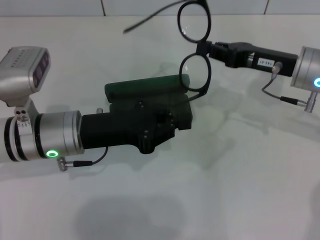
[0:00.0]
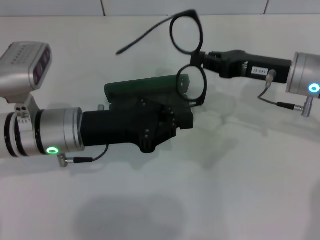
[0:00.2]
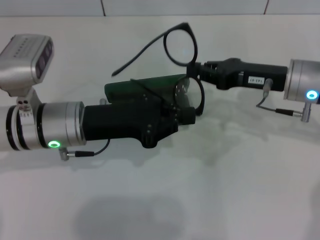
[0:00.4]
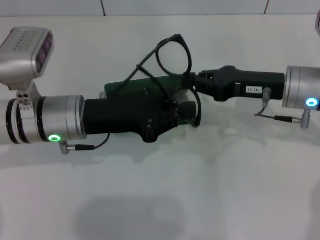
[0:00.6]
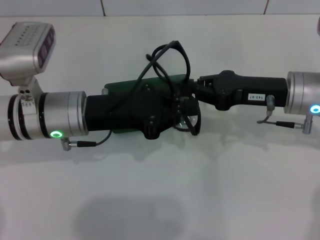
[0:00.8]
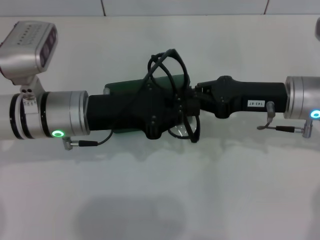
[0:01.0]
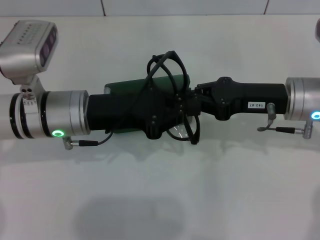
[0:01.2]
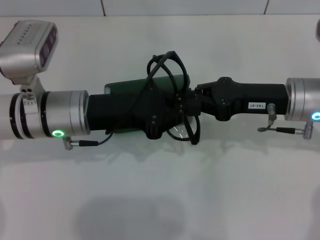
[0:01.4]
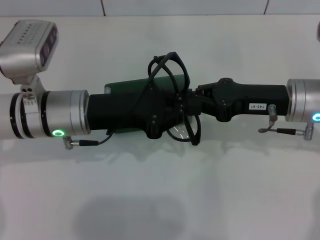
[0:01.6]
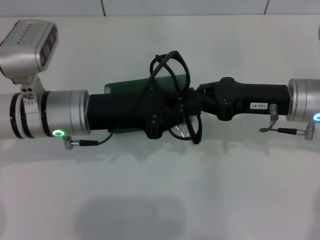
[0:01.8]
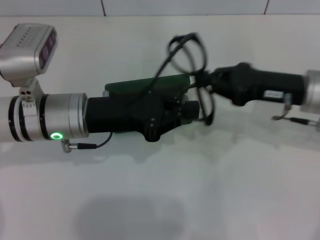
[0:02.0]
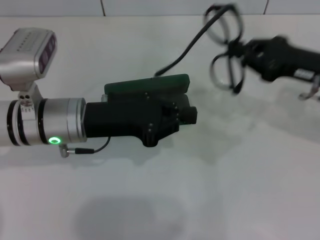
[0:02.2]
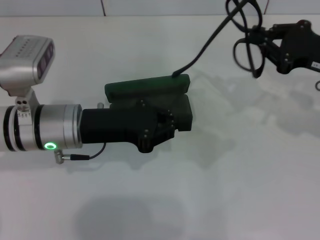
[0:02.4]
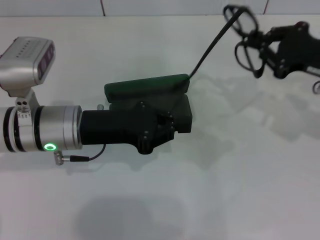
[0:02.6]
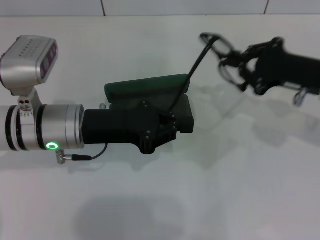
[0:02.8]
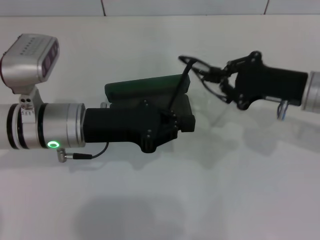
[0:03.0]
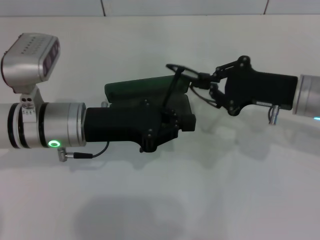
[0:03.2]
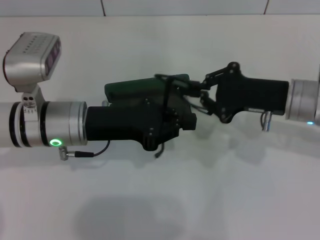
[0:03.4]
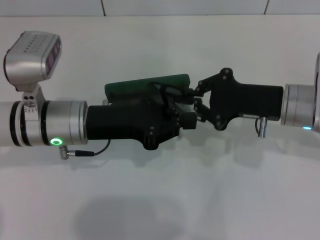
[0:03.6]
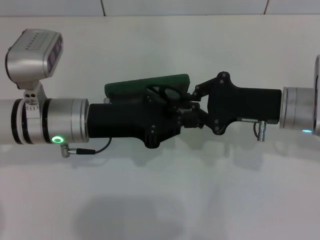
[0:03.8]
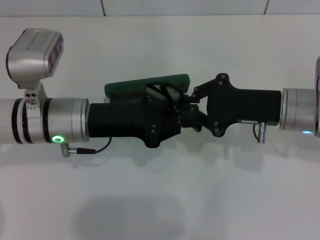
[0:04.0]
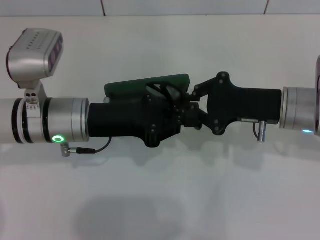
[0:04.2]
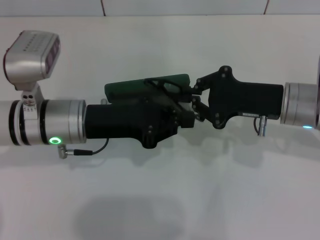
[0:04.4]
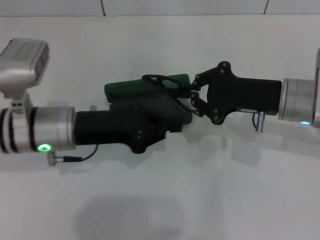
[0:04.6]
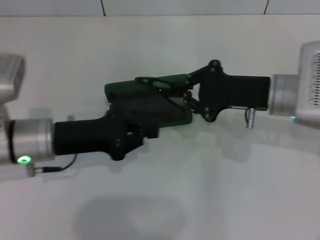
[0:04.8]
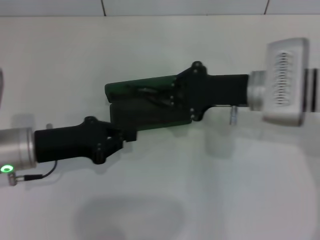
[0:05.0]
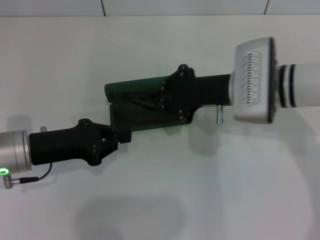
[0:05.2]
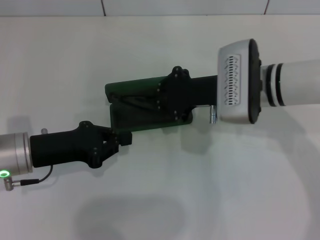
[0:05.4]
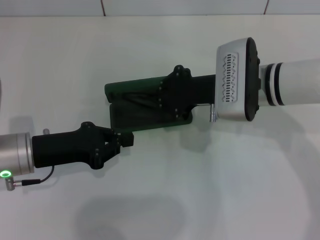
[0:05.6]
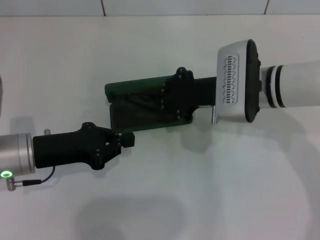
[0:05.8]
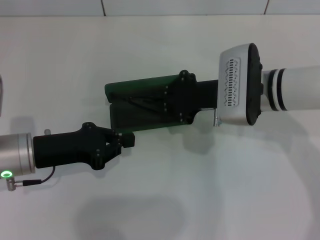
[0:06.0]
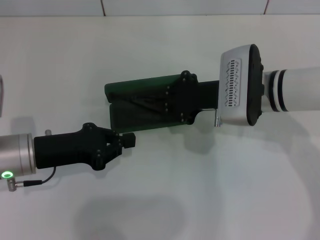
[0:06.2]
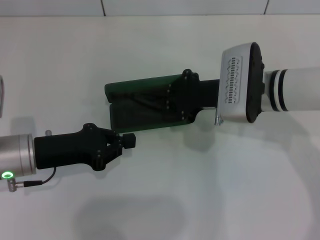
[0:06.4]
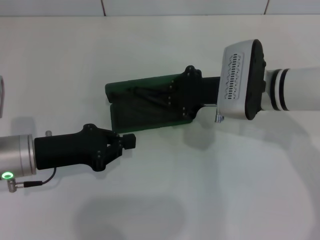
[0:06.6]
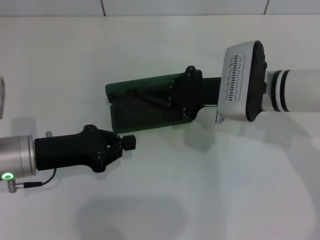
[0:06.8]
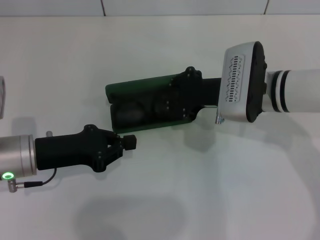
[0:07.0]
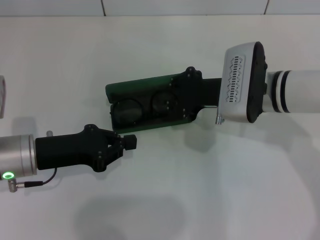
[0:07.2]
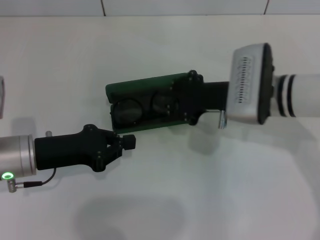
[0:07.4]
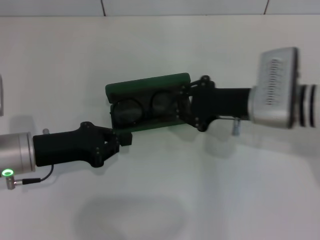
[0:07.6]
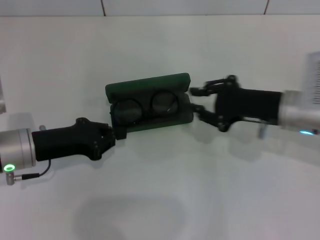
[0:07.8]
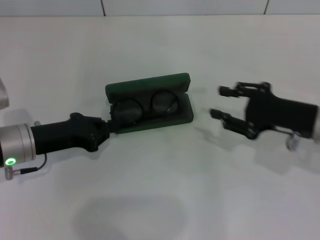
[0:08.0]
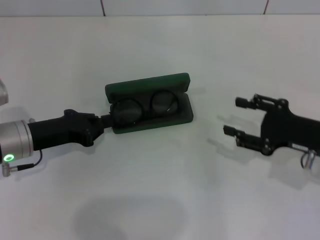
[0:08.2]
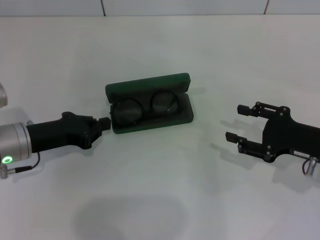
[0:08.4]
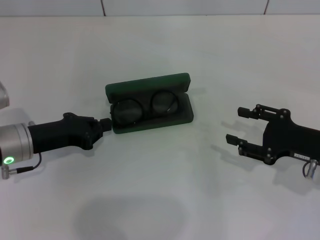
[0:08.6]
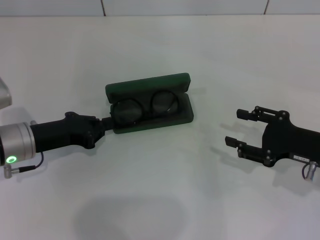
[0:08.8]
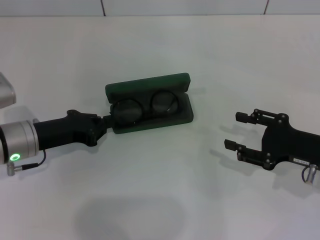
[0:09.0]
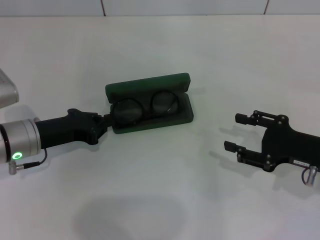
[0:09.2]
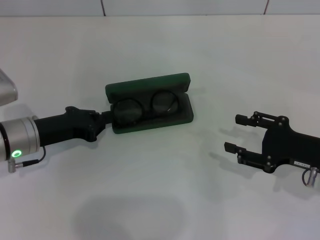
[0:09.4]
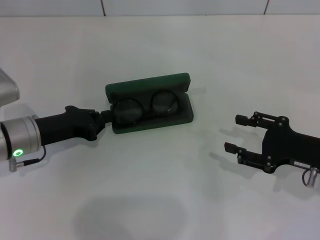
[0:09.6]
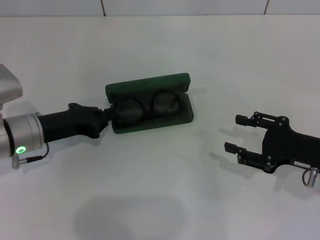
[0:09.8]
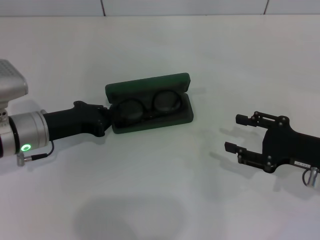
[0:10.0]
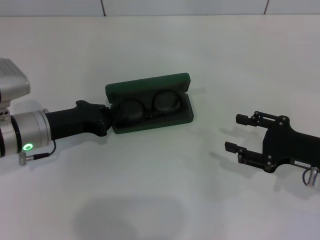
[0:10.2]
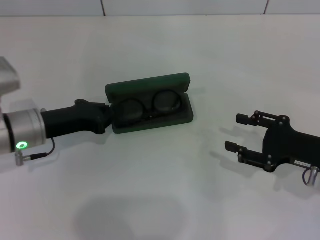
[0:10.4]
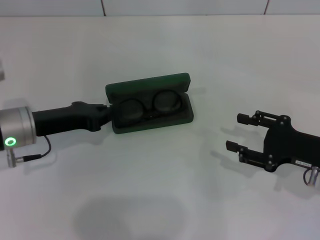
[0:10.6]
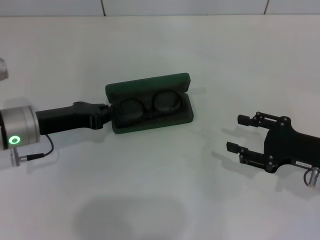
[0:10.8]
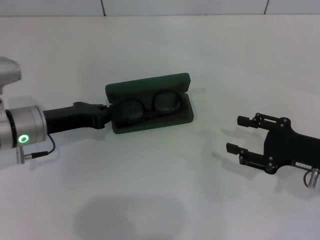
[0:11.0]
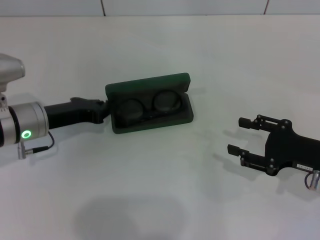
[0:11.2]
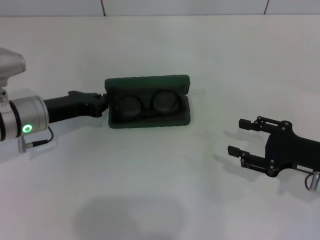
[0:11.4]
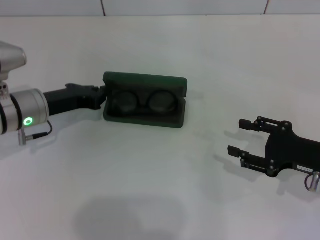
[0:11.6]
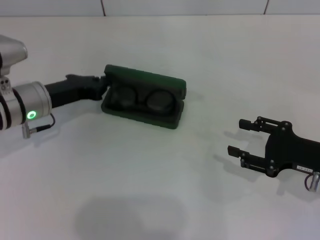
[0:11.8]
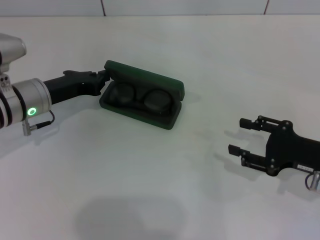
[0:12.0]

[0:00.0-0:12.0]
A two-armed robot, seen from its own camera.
Step, 0:00.0 to 0:04.4: Fold the frame with your left hand.
Step, 0:04.6 to 0:08.6: Put the glasses into the case with your right hand.
0:03.0 to 0:04.4: The grippers make only small movements.
0:04.4 to 0:06.0: The two grippers go roughly 5 cm to the left.
0:06.0 to 0:07.6: The grippers move only a little.
0:07.6 to 0:09.0: The right gripper is displaced to the right and backward by some 15 cm, and opens up.
0:09.0 to 0:12.0: There are only small adjustments of the grippers.

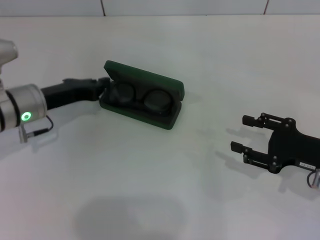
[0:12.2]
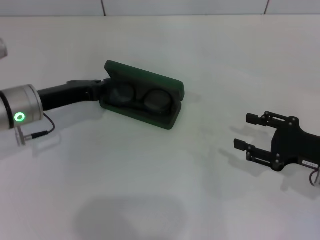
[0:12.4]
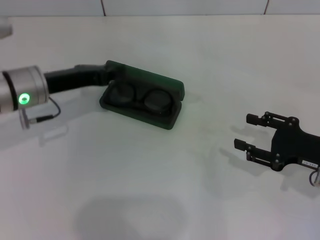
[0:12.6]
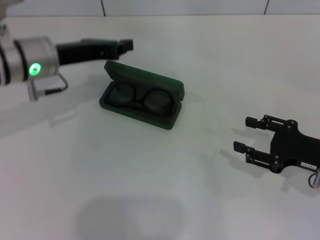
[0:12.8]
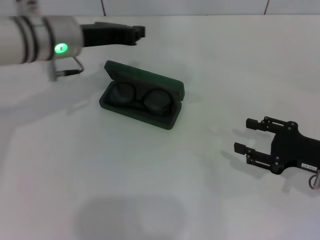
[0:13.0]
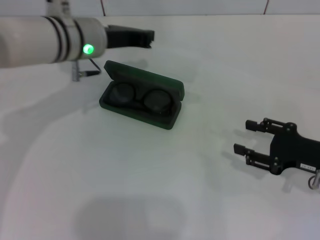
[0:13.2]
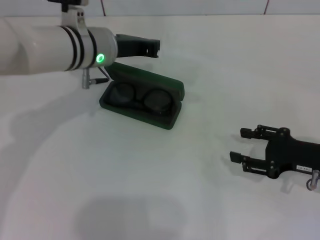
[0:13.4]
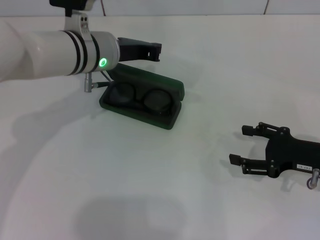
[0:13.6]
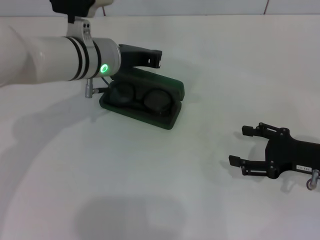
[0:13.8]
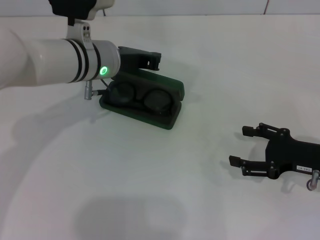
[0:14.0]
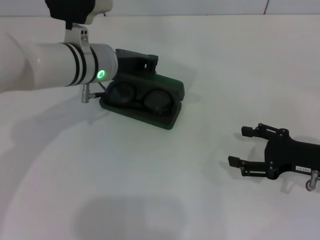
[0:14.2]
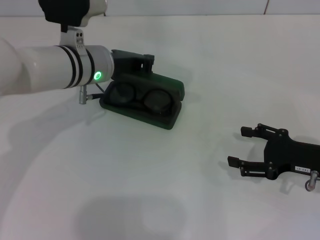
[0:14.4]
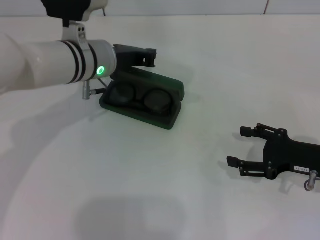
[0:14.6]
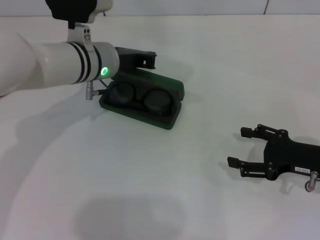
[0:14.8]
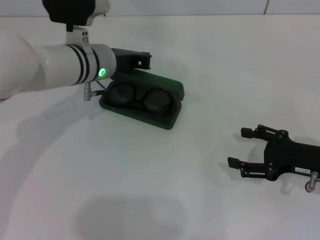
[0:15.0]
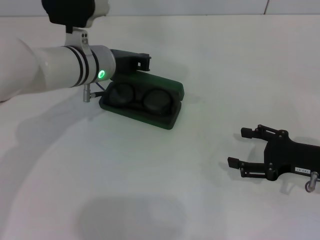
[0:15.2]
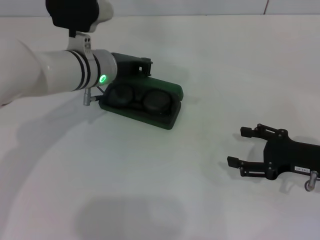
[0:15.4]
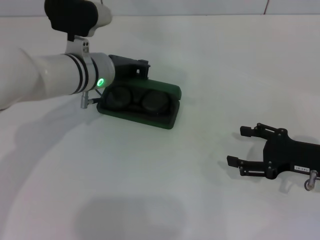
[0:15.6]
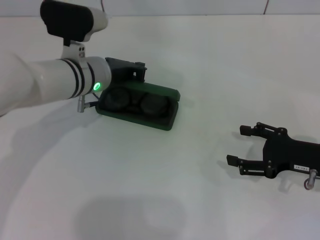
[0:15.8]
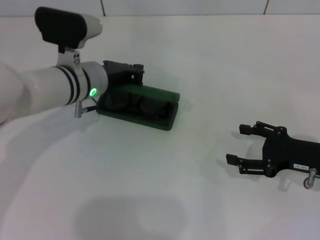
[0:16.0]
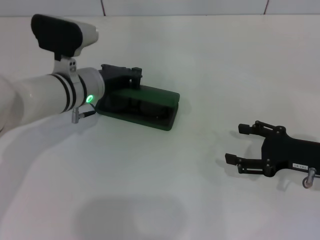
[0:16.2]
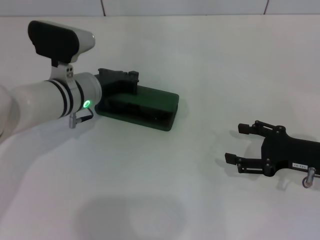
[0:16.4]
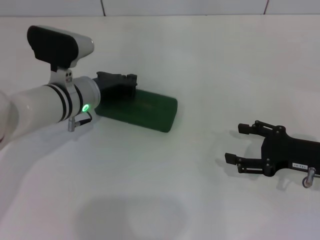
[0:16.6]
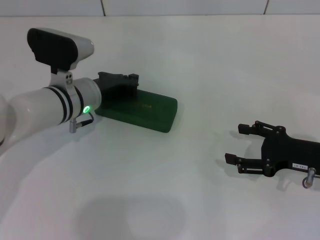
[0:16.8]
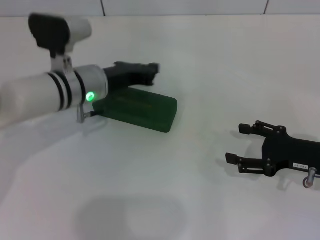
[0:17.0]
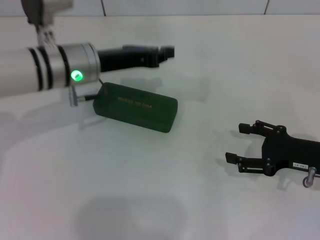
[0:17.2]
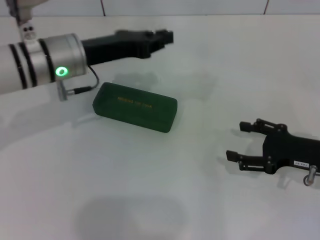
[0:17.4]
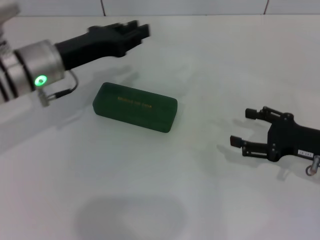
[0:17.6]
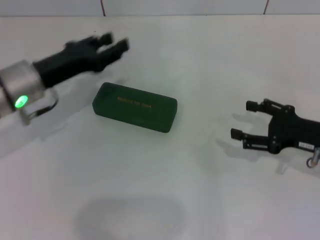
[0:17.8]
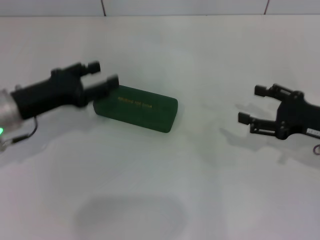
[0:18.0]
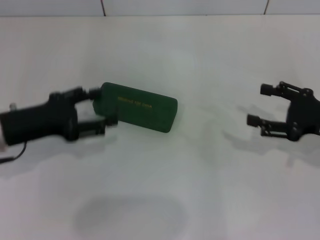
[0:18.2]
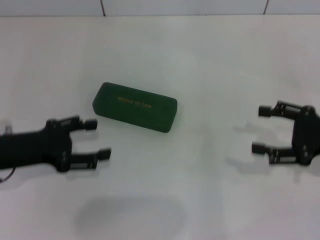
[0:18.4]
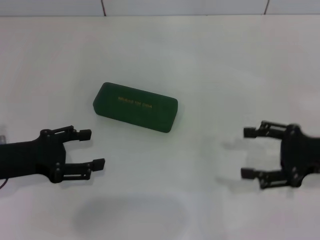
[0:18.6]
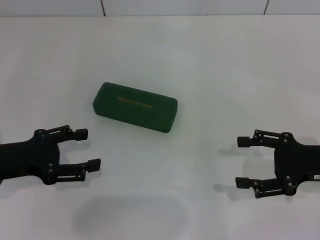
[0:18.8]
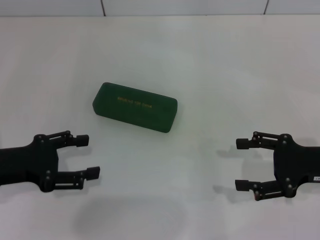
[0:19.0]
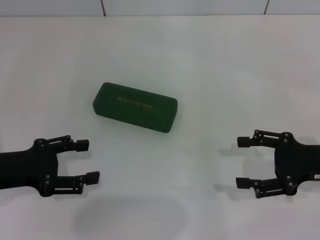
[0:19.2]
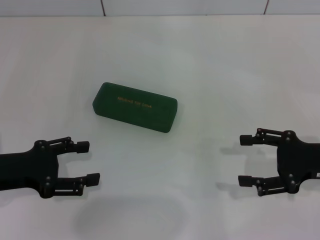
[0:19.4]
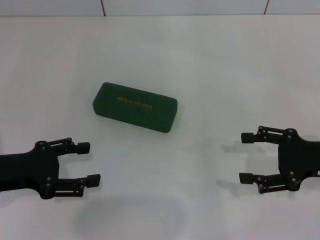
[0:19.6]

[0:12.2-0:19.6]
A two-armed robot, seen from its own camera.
Step, 0:12.2 to 0:16.8: Close the glasses case with your left hand.
0:12.2 to 0:13.6: The left gripper goes about 15 cm to the right and upward.
0:13.6 to 0:15.2: The grippers stay close to where they were, moving slightly.
0:15.2 to 0:16.6: The left gripper ends up approximately 5 cm from where it was.
0:16.6 to 0:18.2: The right gripper moves some 5 cm, while the left gripper moves to the left and backward, roughly 15 cm, and opens.
0:18.2 to 0:19.6: The grippers stay close to where they were, moving slightly.

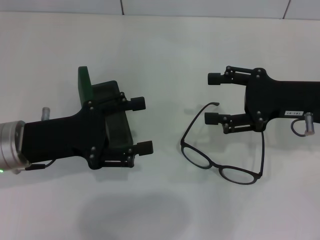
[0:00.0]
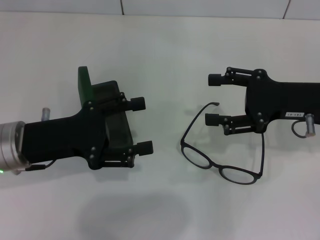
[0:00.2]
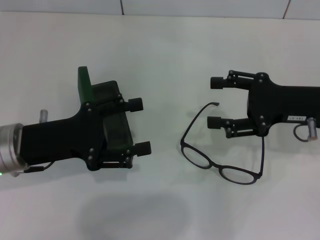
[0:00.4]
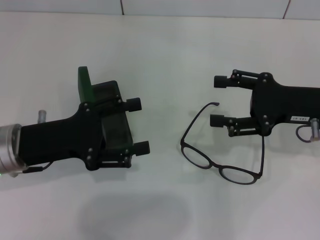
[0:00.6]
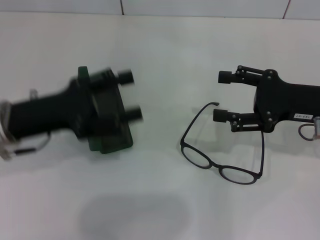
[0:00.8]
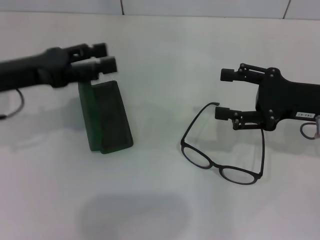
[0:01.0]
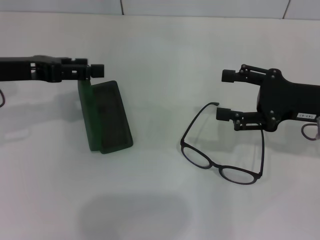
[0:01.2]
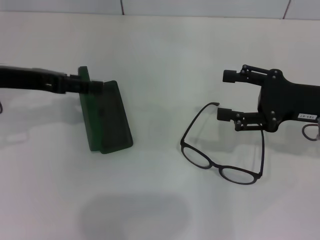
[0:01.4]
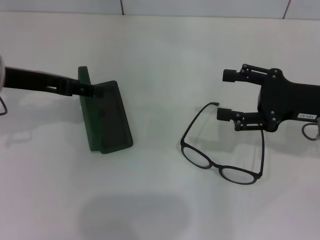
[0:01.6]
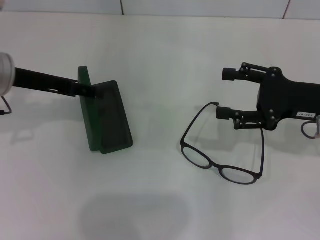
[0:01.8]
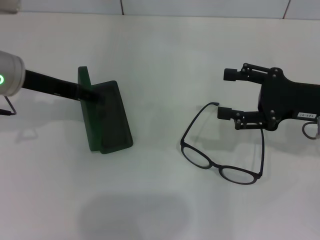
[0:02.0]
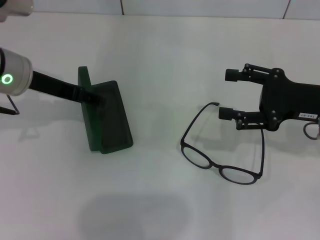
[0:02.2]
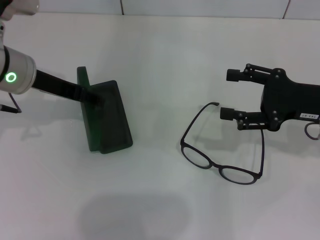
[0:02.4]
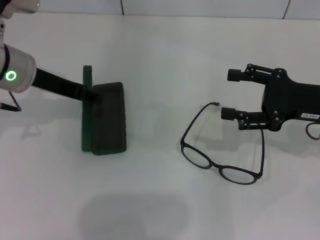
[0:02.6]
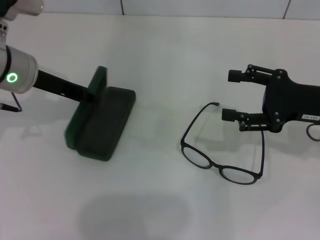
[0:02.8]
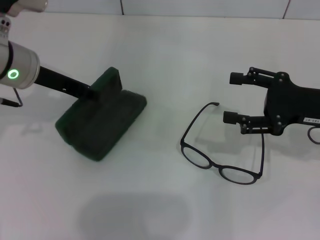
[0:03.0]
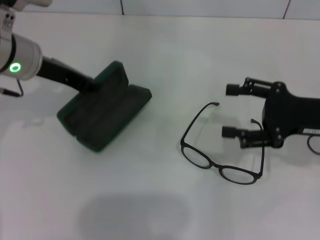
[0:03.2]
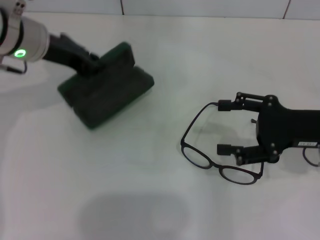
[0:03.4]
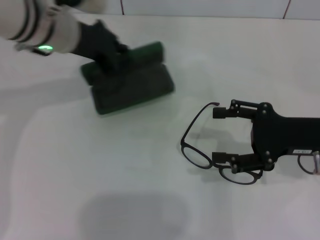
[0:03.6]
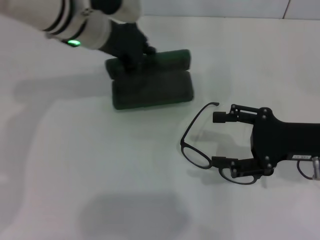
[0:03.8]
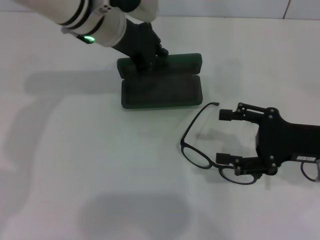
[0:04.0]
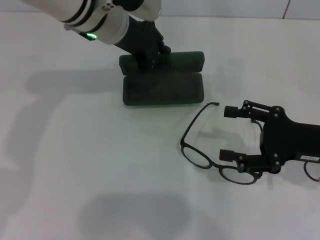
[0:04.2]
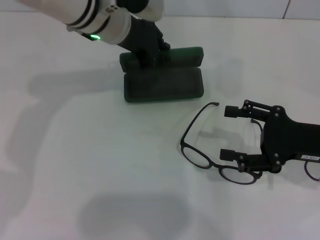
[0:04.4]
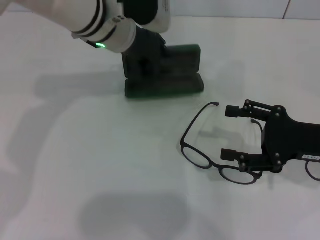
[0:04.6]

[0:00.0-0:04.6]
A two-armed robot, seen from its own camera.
Step, 0:00.0 to 0:03.0: Grab the glasses case with your left hand.
0:00.0 to 0:01.6: The left gripper goes some 10 cm upward and forward.
0:01.6 to 0:03.0: The left gripper closes.
0:03.0 to 0:04.6: The left gripper goes about 15 cm to the right and forward.
